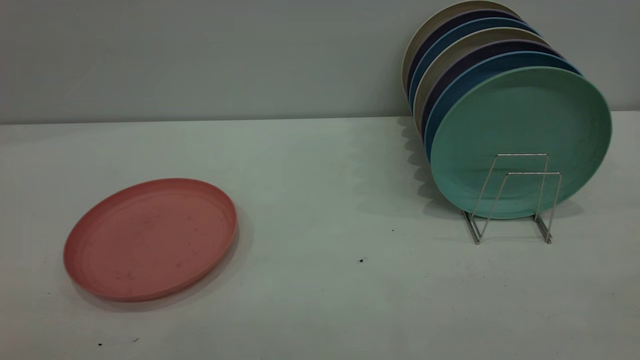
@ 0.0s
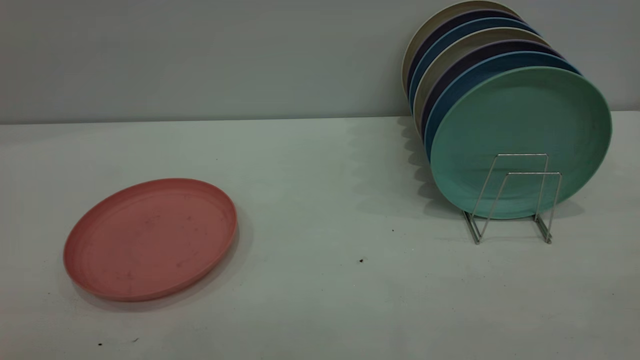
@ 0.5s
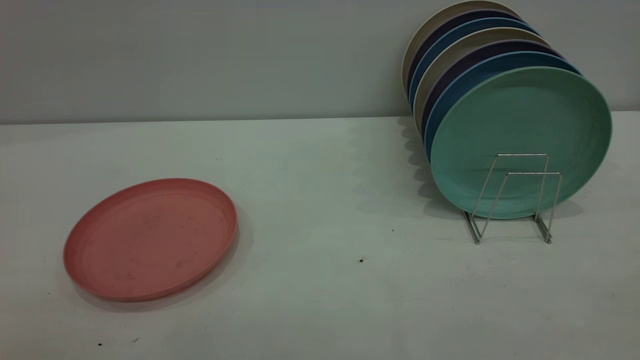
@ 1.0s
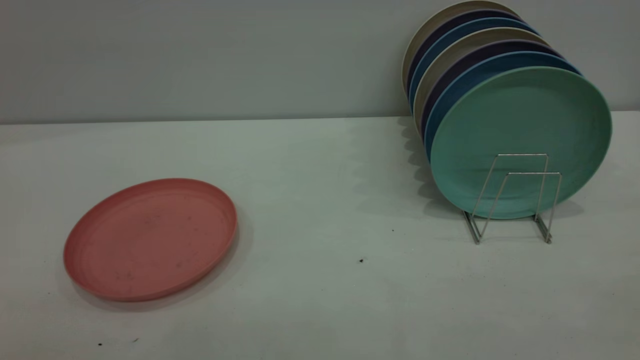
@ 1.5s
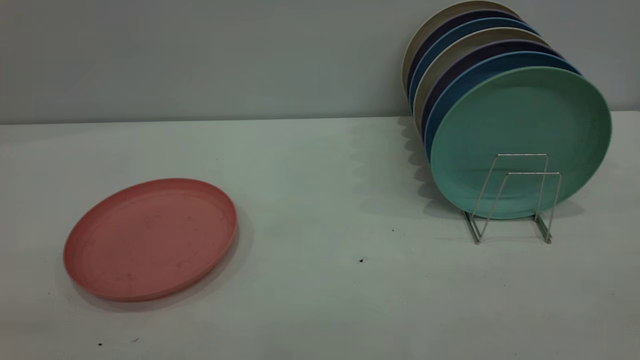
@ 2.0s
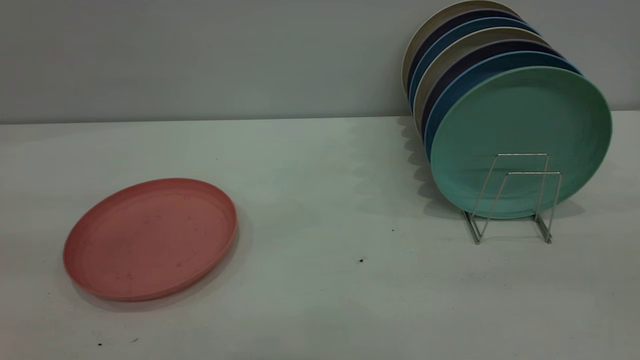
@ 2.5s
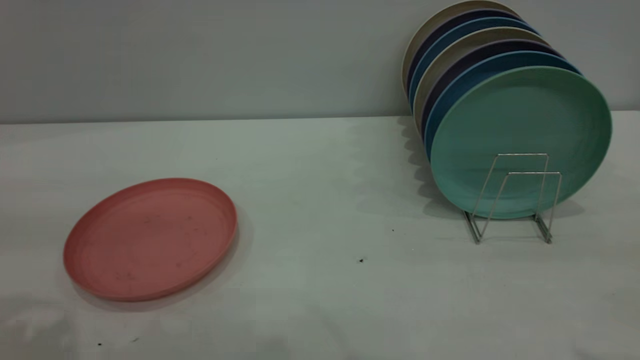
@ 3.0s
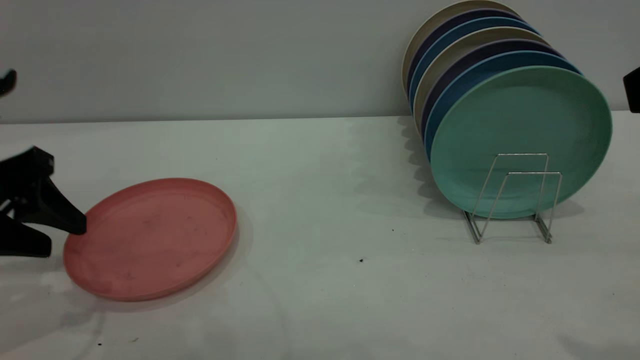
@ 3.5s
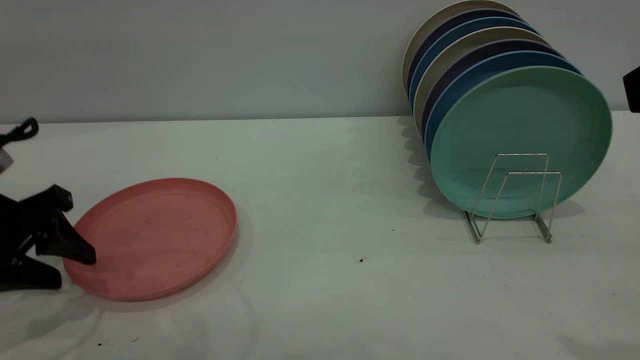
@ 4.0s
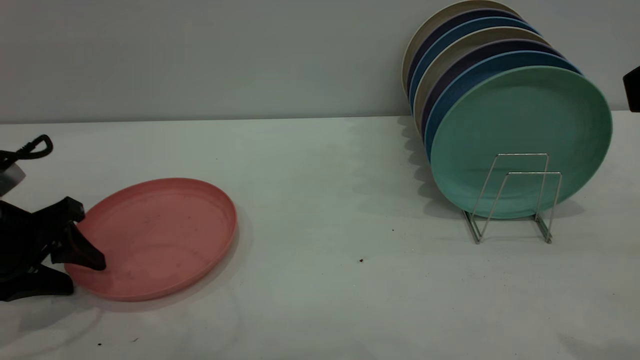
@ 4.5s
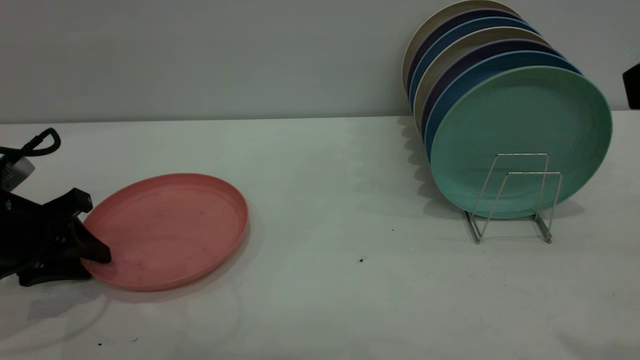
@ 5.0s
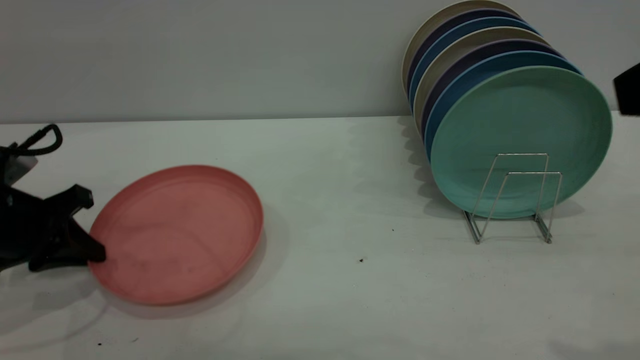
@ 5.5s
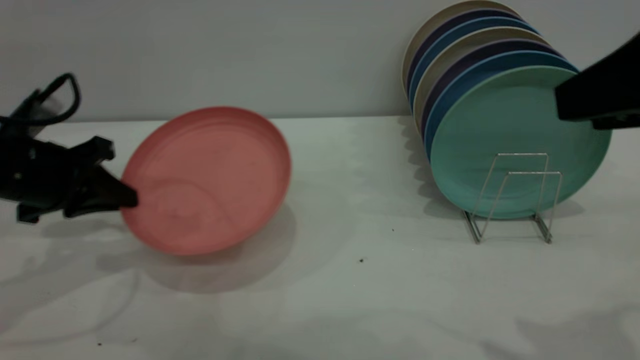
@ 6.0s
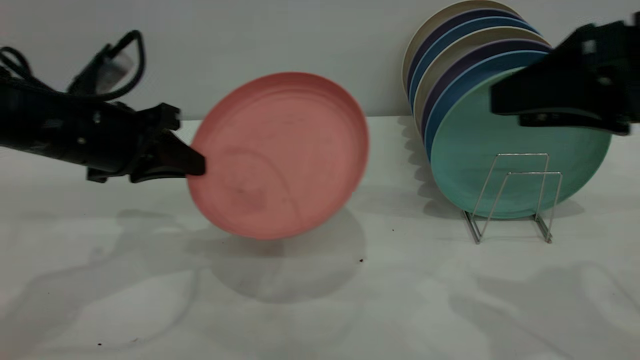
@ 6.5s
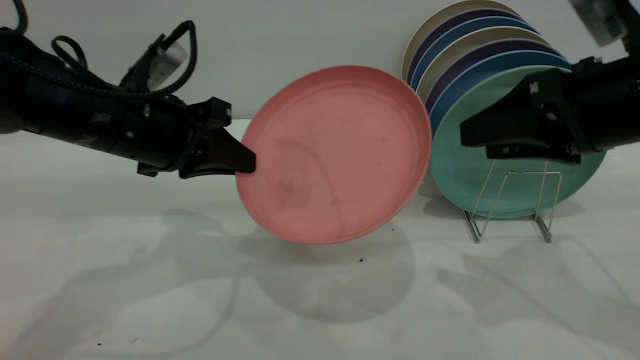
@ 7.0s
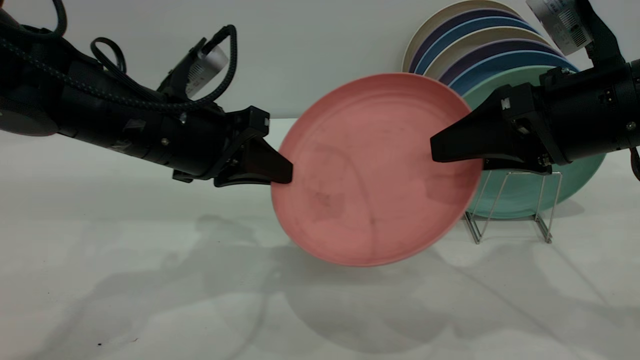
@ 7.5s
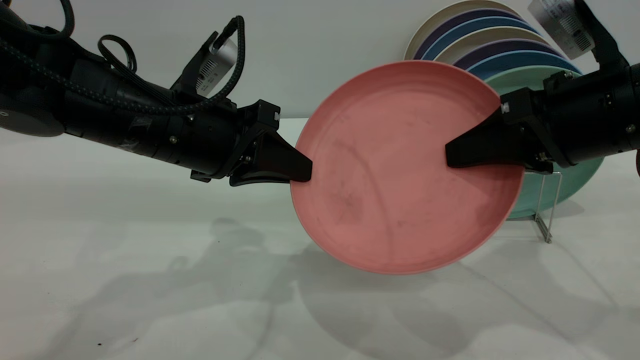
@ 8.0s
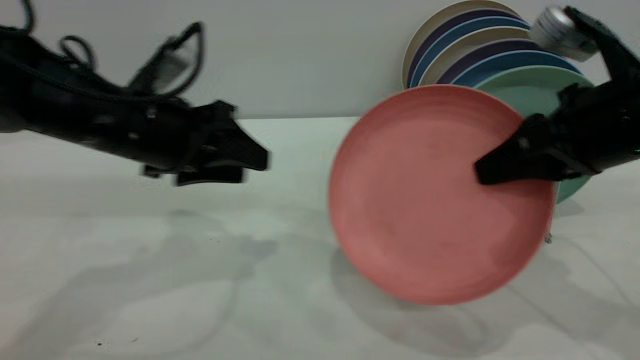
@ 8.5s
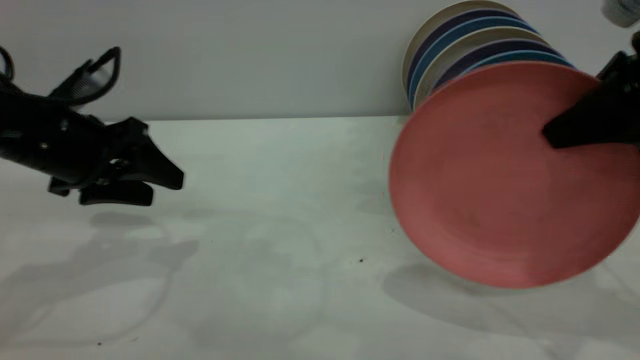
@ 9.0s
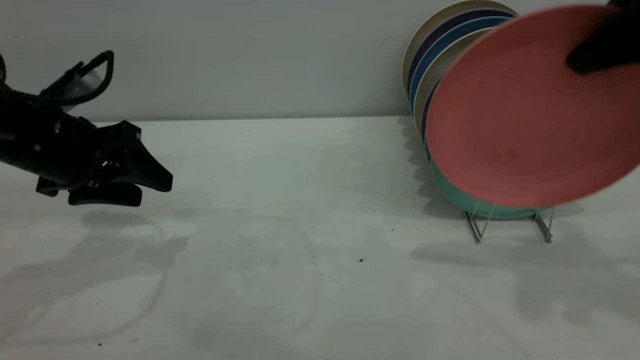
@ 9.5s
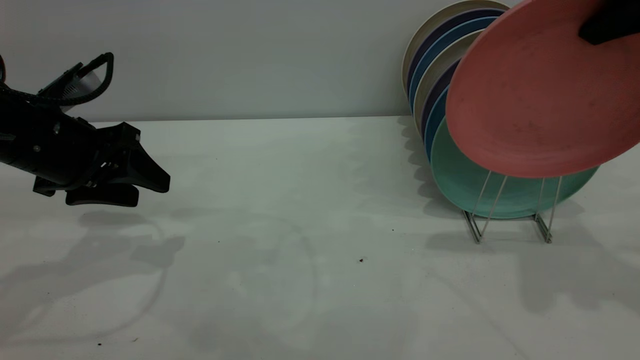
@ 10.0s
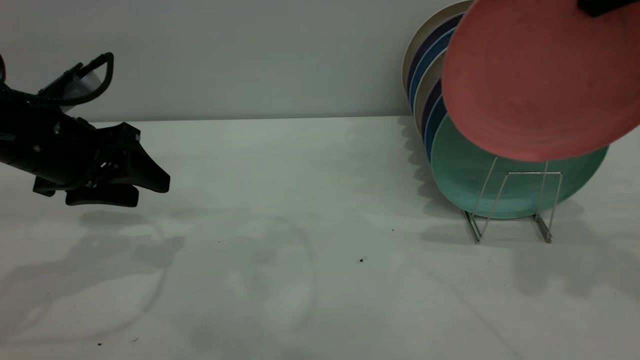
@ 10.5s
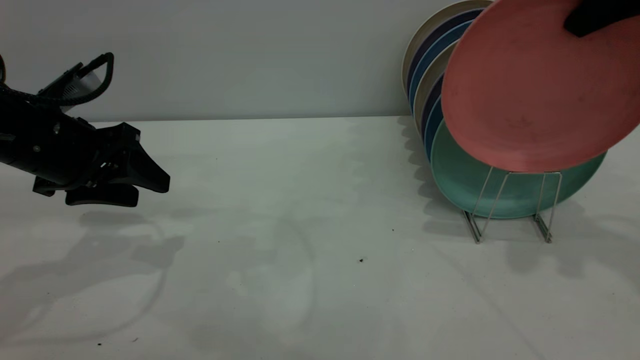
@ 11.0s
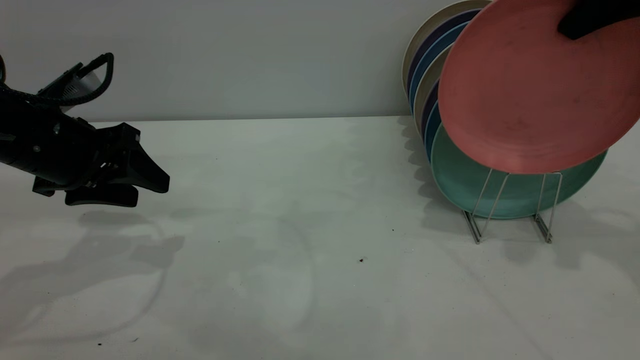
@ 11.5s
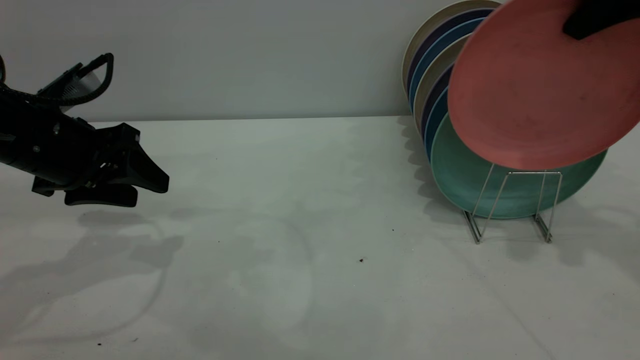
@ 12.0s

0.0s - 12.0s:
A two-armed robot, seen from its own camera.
Task of the whole recording: the left gripper grasp the pink plate, the left gripper pass the pink plate to the right gripper, and the right gripper place the pink plate on the plate rack.
Step, 0.0s - 5.5s: Pick up the plate with the left gripper.
Step, 6.0s - 8.5s: Pass the plate from the left gripper to the right gripper.
2.0s - 4.0s: The left gripper travels downward and forward by approximately 35 cm.
4.0s - 6.0s: The left gripper is displaced forward by about 5 cm, and closes.
6.0s - 8.0s: The right gripper heads forward and downward, covering about 15 cm, and closes; the left gripper goes some 15 cm to the right.
8.0s - 10.0s: The left gripper heads to the left, covering roughly 15 cm, and opens its fingers; the right gripper heads upward and to the right, covering roughly 15 cm.
10.0s - 12.0s: The right gripper is displaced forward by approximately 5 cm.

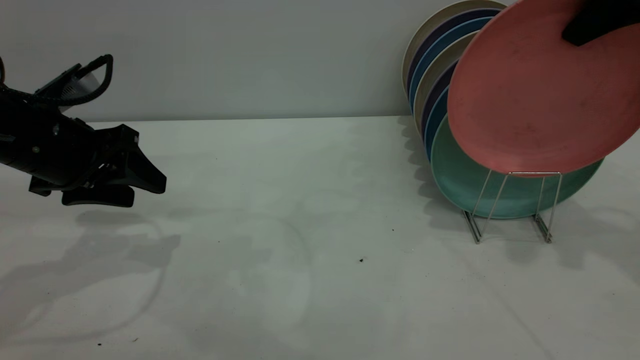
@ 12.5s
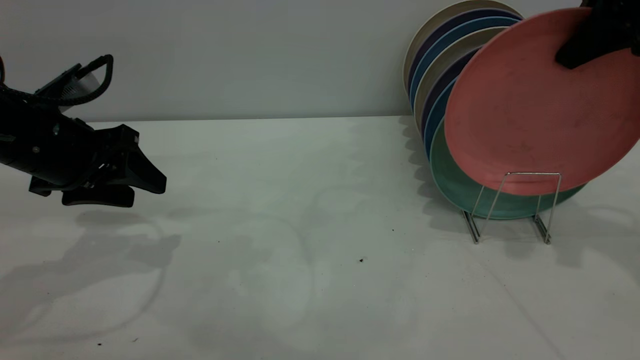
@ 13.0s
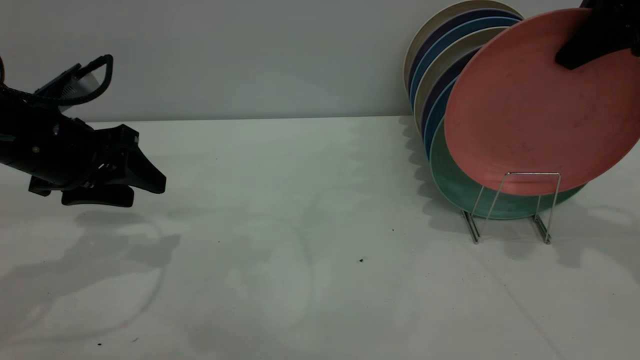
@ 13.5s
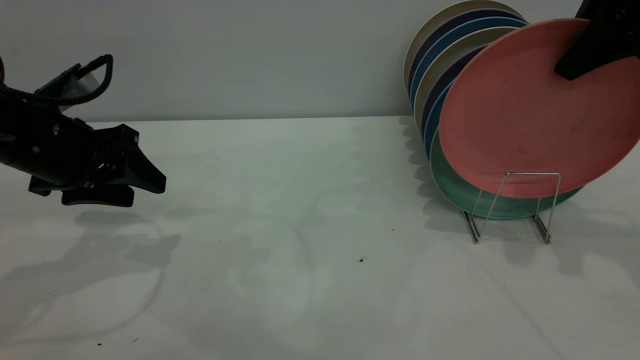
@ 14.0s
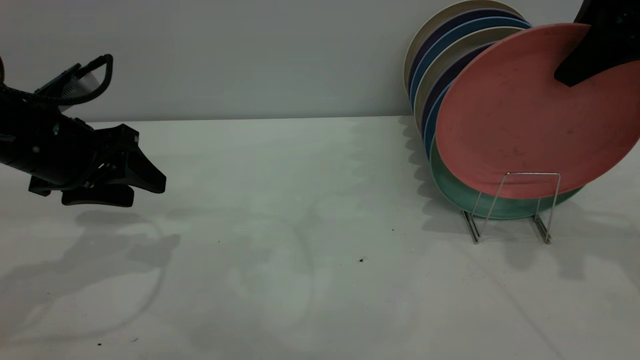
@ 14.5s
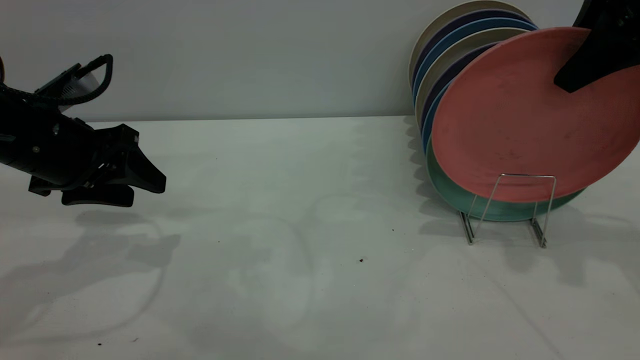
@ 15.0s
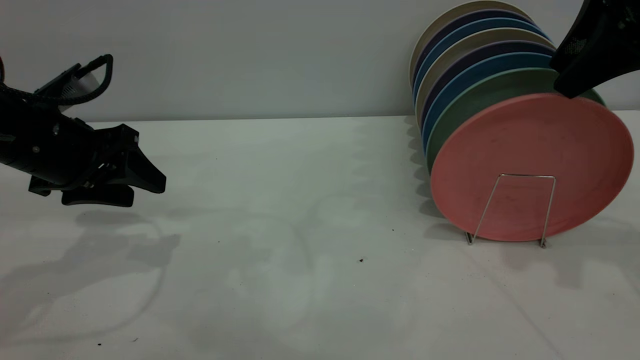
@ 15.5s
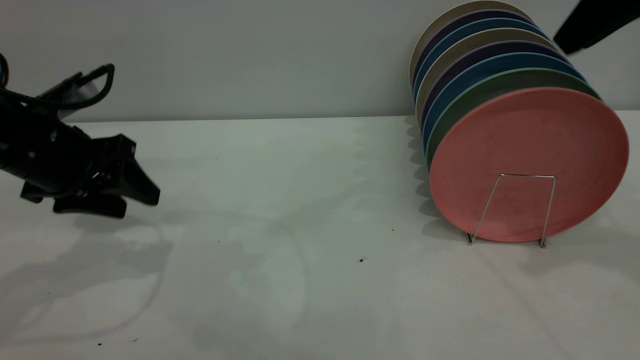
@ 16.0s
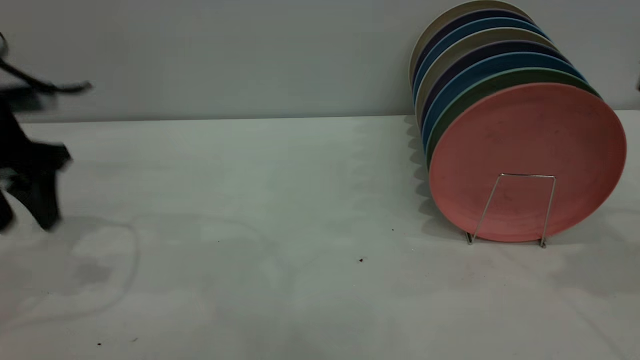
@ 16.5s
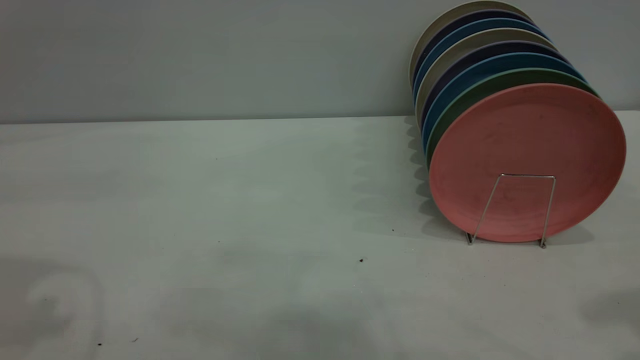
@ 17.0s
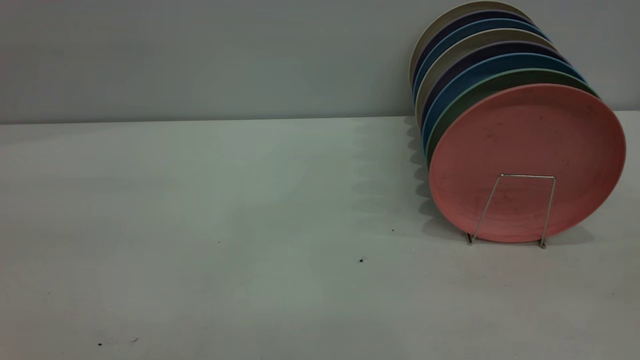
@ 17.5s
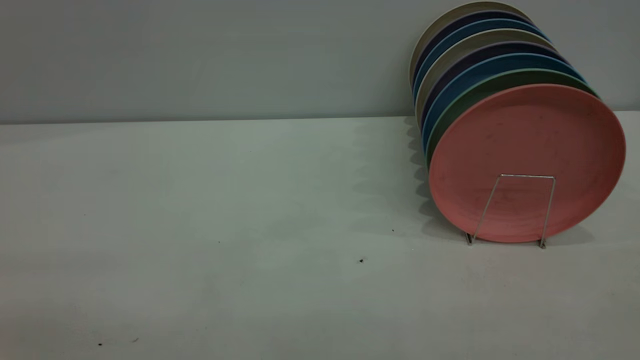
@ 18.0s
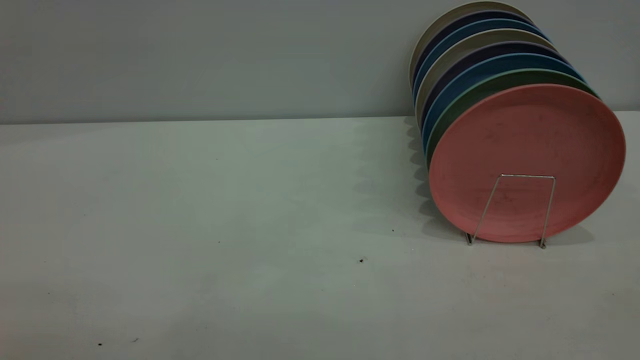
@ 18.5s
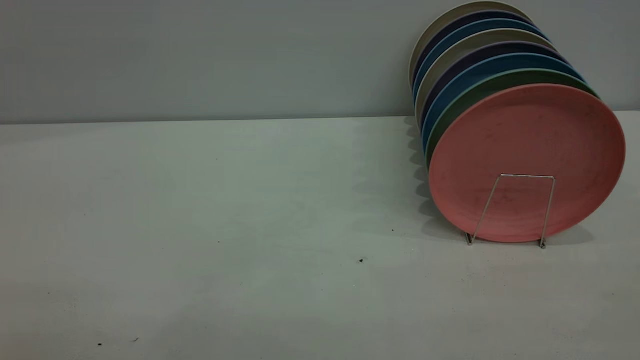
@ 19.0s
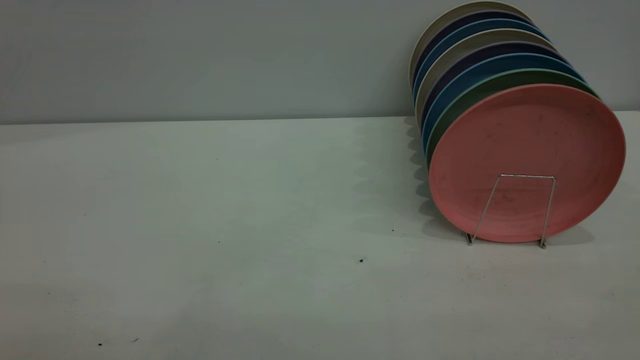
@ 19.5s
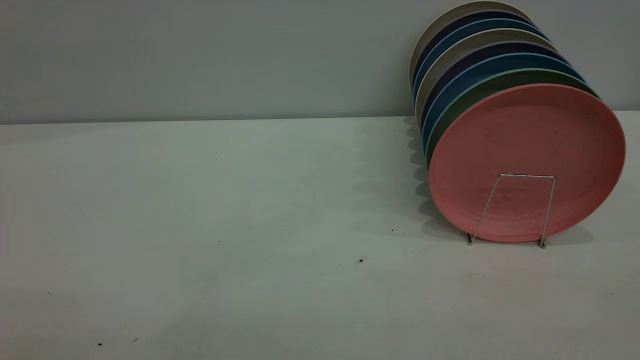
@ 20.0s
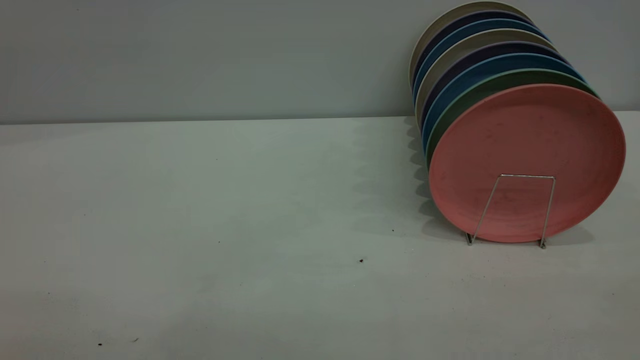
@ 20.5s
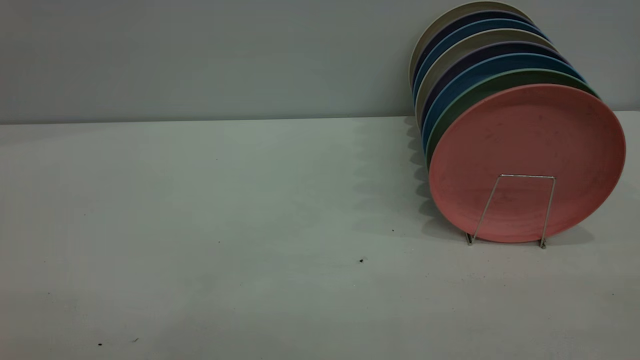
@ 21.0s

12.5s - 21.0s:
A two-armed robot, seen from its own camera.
Task of the whole recording: the left gripper grasp the pink plate, the left gripper pass the pink plate to the right gripper, and the right gripper place the pink plate on the plate rack.
Step, 12.5s - 16.0s: Place the plate on the shelf.
12.5s - 14.5s: The grippers make only small movements.
14.5s - 16.5s: The right gripper changes place by about 5 cm, and opens; the left gripper travels upward by approximately 5 cm.
16.5s - 19.0s: The left gripper goes about 35 cm backward.
